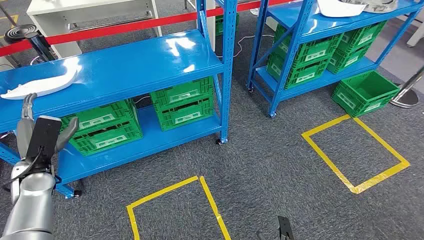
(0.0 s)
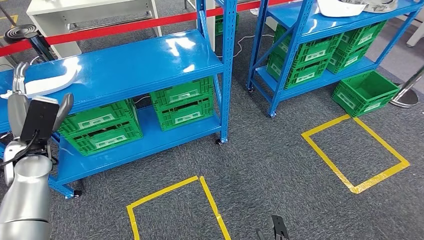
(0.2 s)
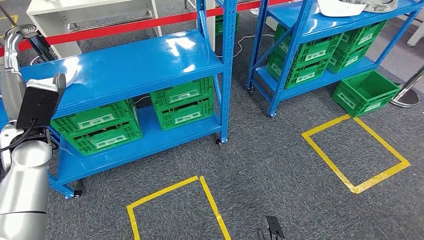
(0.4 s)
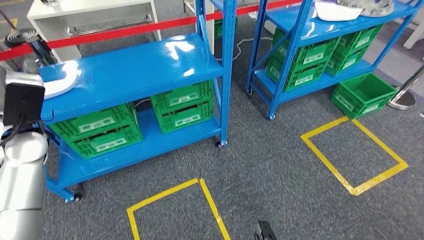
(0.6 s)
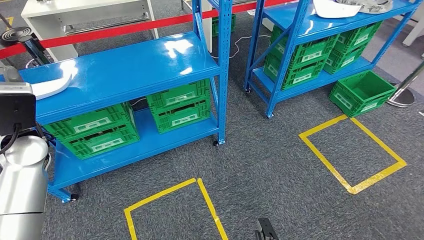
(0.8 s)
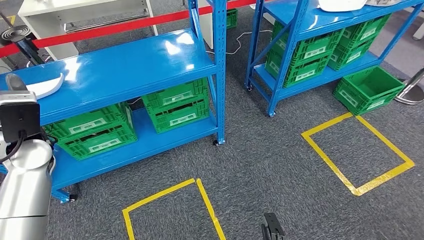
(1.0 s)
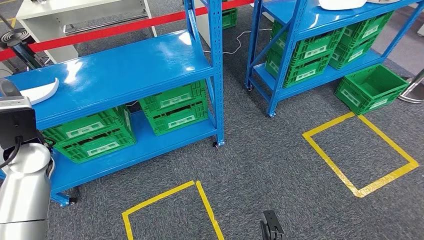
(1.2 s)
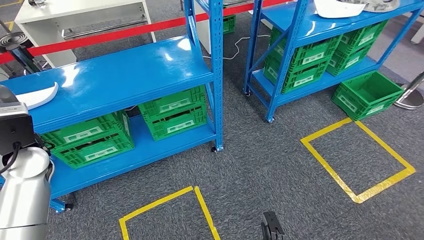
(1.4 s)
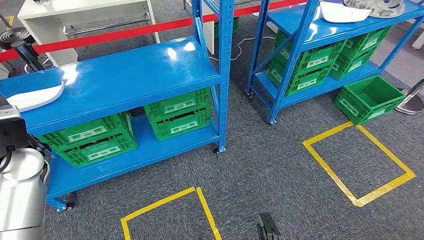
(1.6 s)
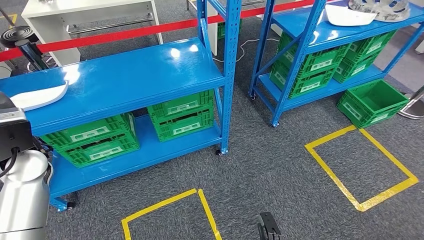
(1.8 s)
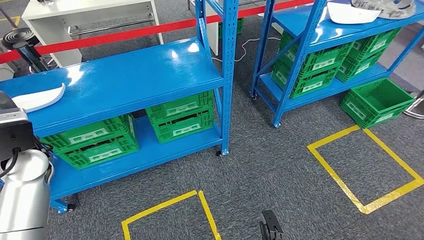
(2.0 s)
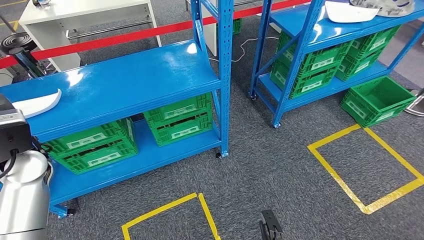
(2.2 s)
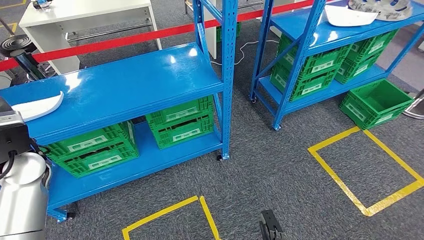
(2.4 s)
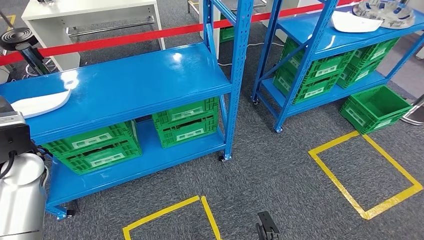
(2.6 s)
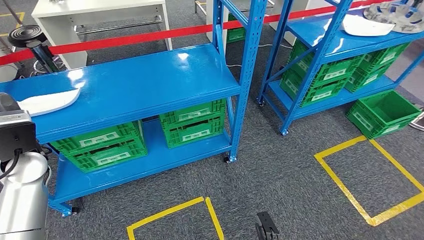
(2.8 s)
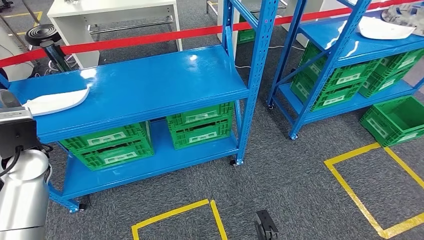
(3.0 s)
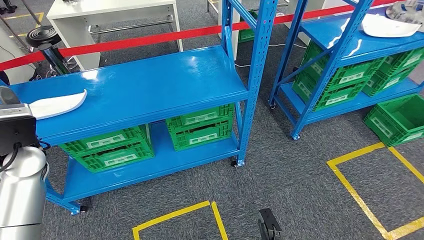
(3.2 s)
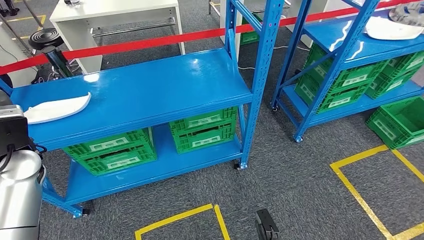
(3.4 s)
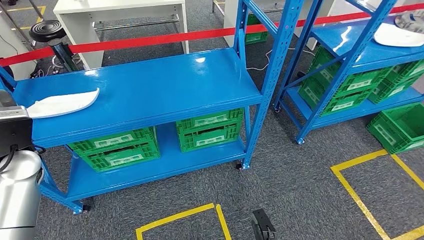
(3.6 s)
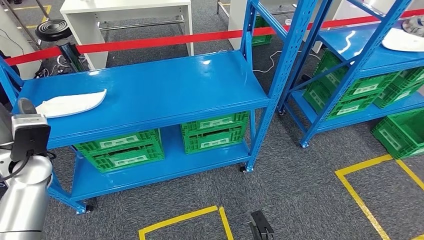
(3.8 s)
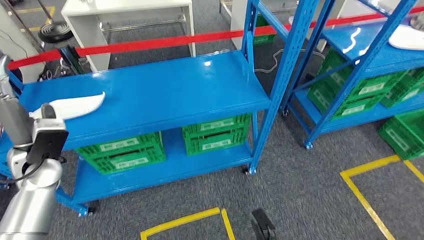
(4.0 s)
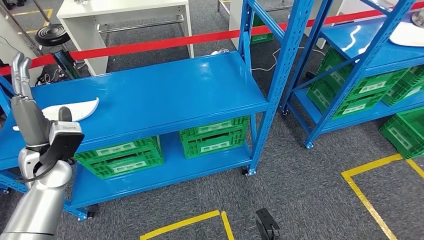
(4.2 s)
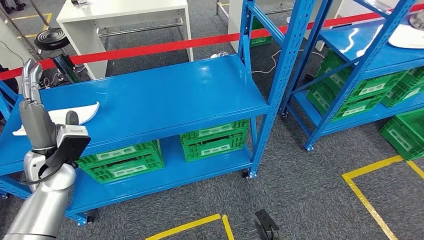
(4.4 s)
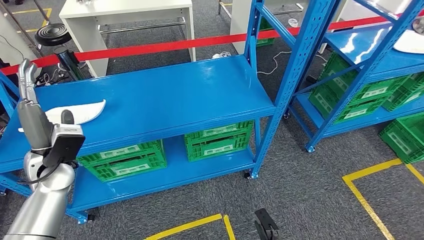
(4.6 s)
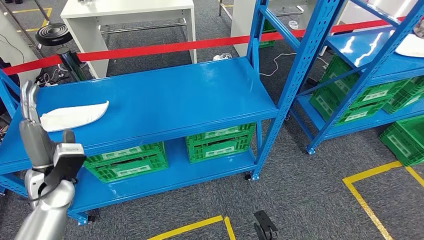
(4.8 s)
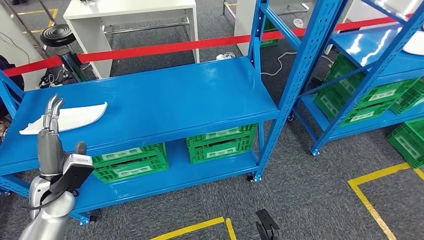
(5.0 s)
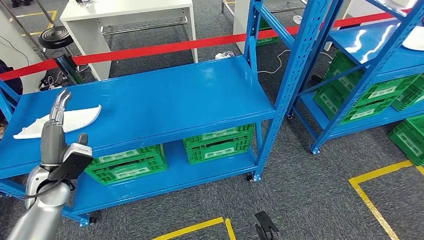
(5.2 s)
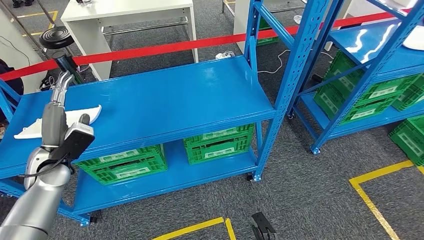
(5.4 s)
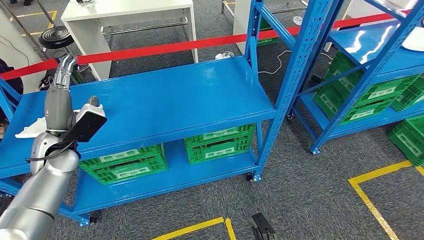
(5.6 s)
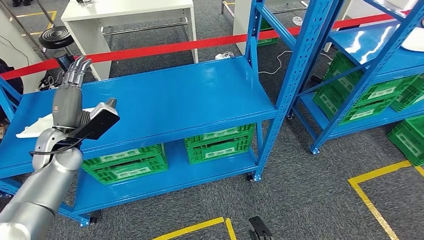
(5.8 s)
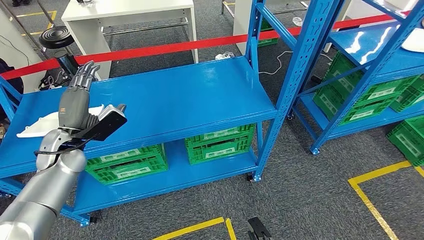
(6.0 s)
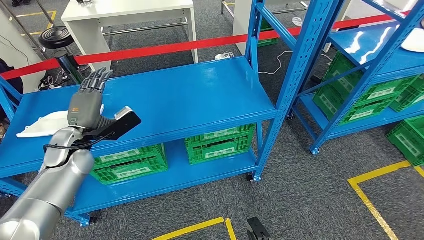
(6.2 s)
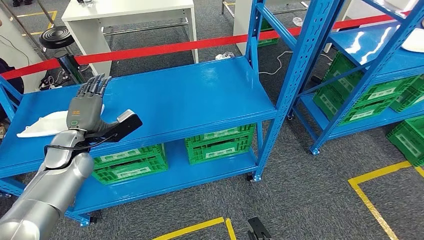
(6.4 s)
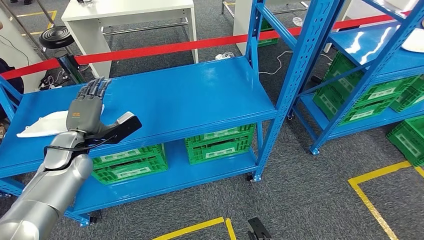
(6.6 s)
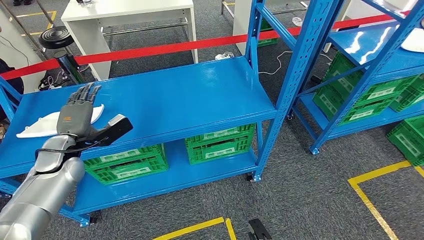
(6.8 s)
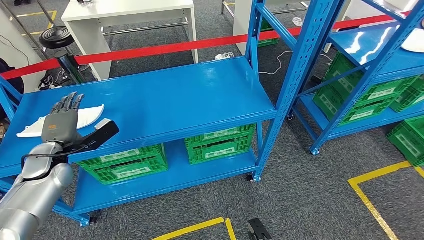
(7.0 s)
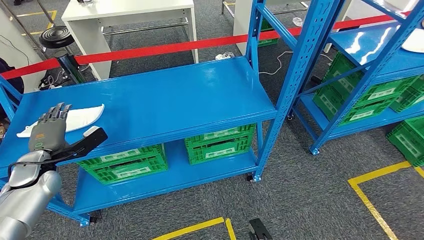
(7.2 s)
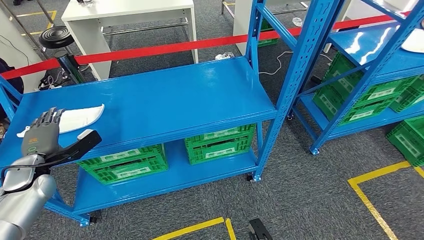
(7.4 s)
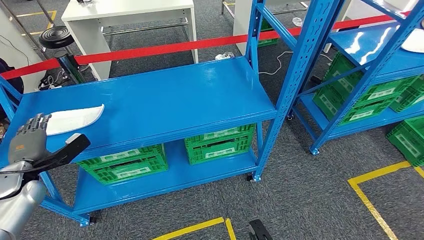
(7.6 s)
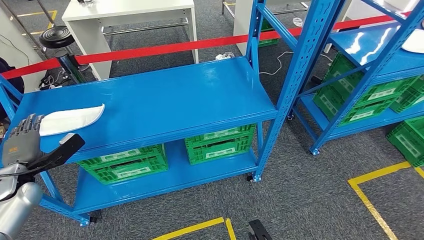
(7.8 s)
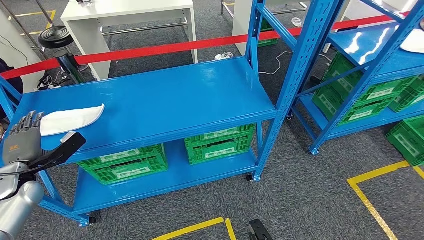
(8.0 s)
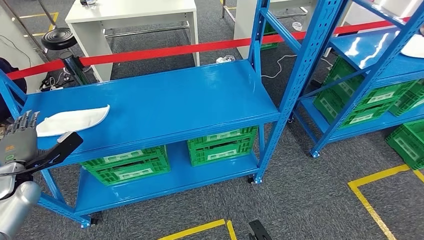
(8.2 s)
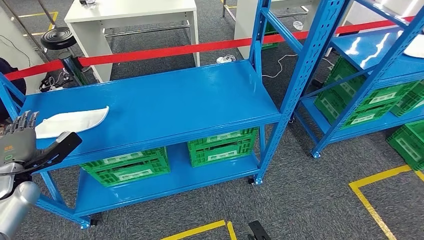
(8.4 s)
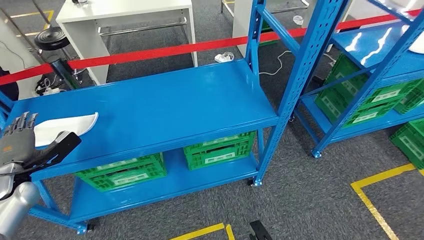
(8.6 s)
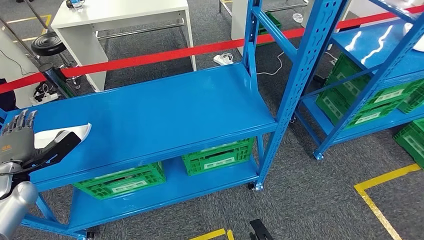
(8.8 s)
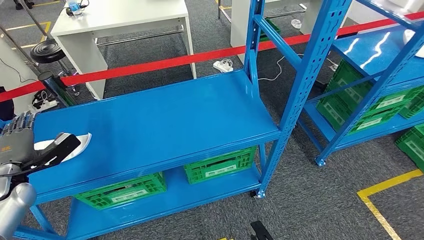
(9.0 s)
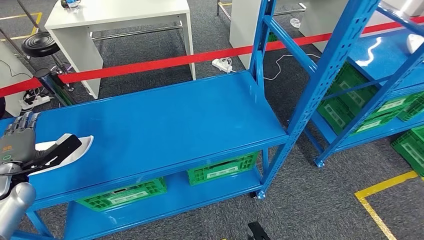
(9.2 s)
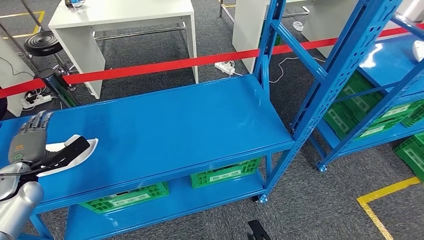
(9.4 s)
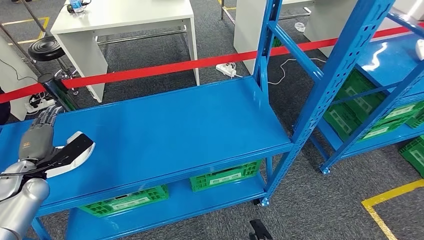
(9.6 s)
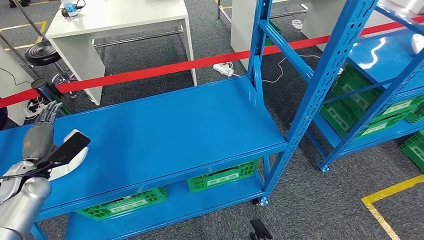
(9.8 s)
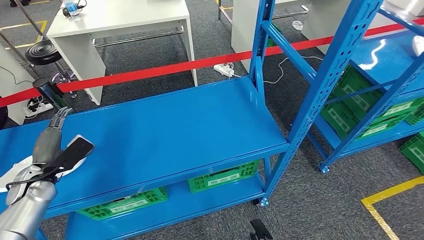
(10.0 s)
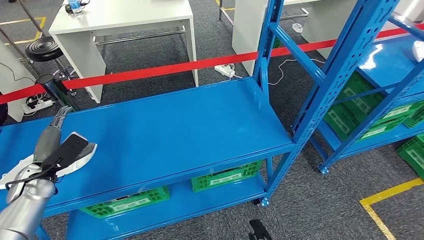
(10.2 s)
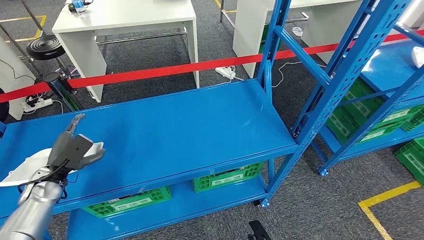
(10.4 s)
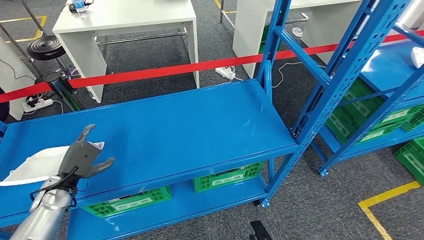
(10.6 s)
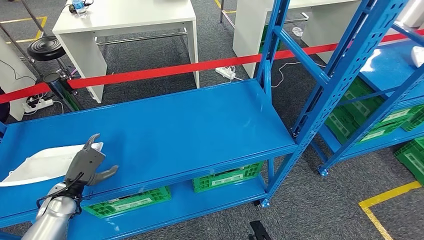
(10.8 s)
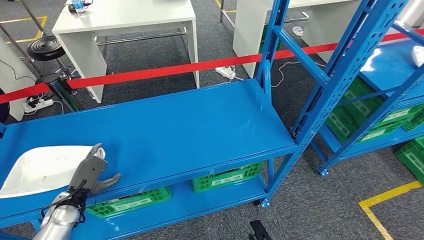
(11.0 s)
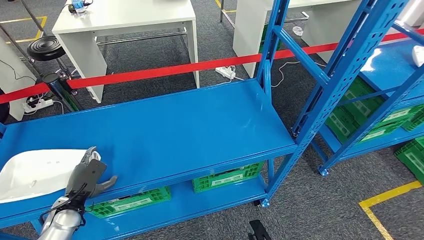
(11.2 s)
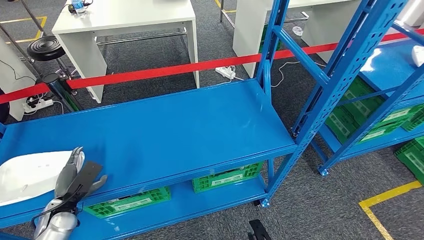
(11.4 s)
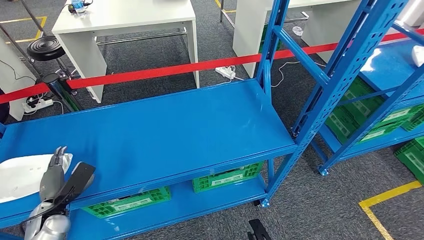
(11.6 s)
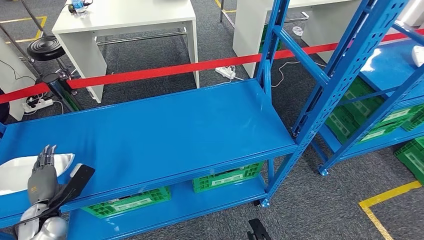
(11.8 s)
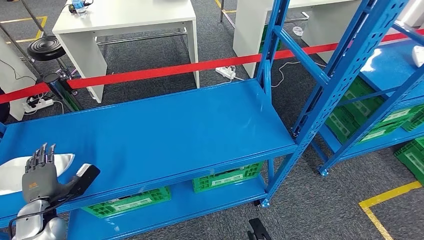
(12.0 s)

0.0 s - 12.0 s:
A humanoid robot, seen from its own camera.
6.0 s - 7.6 s: The left hand is displaced to the left and downward by some 15 cm.
10.4 s - 12.0 s: The left hand is displaced downward and backward by roughly 10 cm.

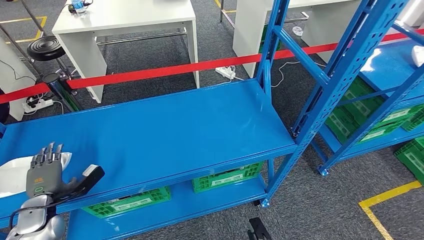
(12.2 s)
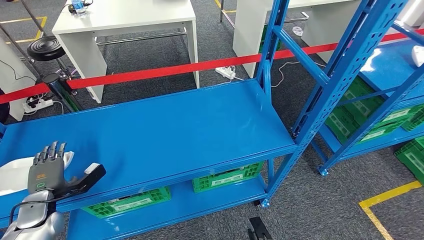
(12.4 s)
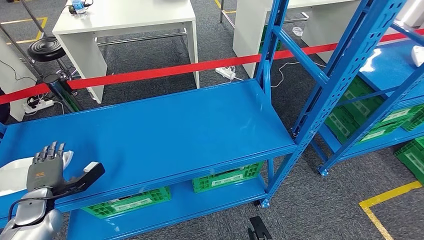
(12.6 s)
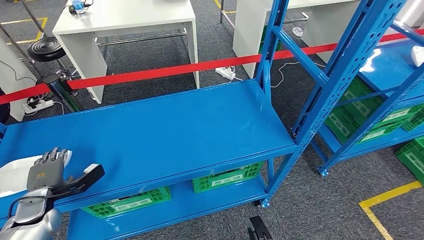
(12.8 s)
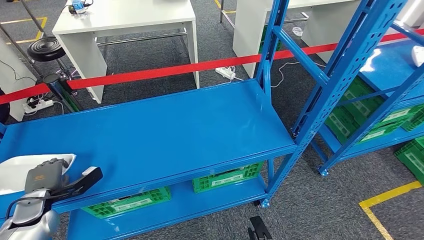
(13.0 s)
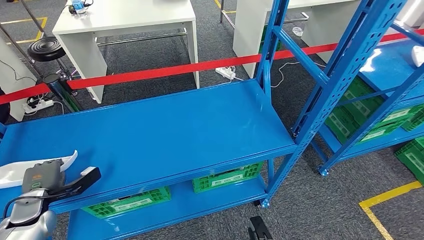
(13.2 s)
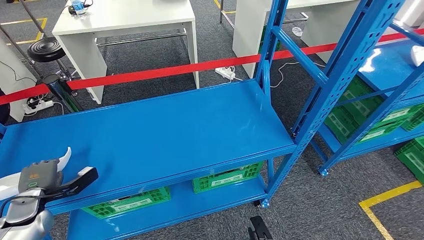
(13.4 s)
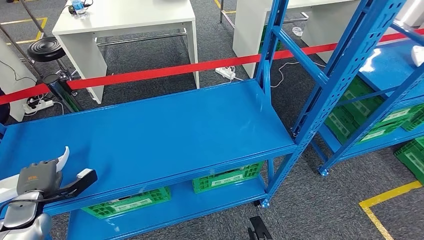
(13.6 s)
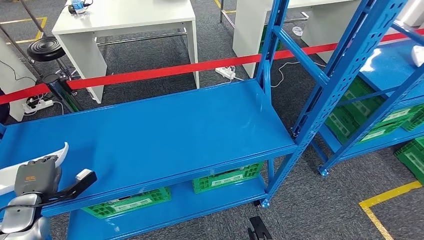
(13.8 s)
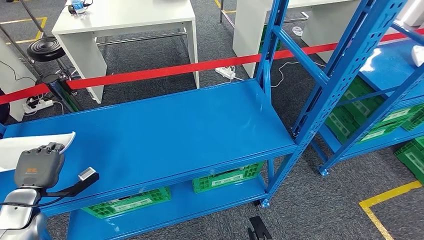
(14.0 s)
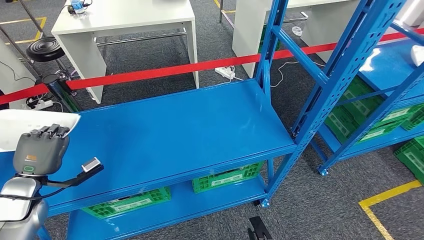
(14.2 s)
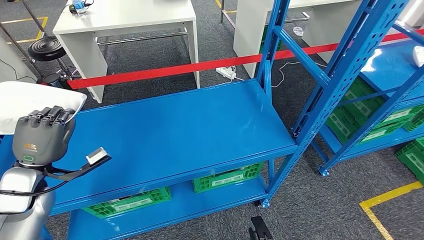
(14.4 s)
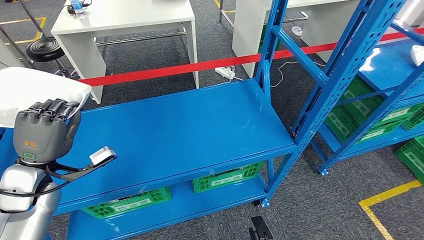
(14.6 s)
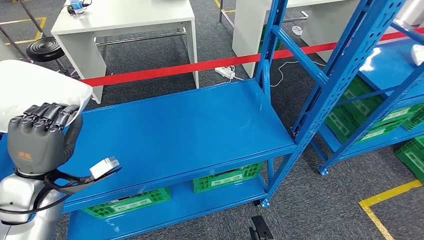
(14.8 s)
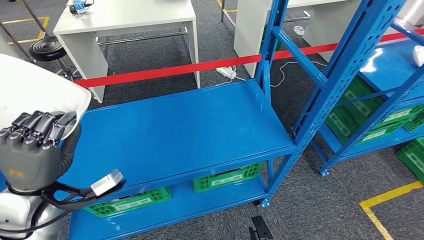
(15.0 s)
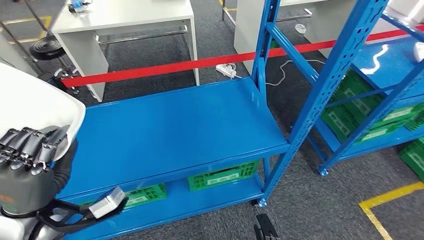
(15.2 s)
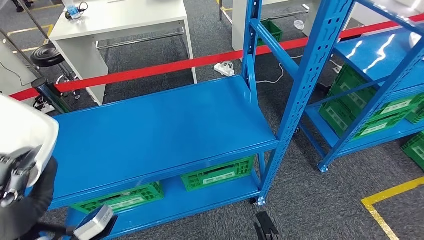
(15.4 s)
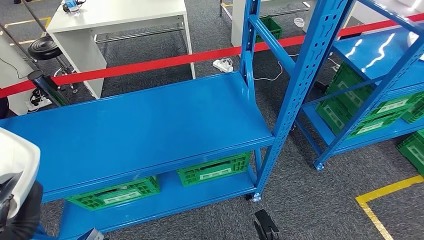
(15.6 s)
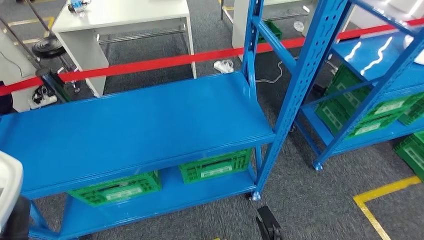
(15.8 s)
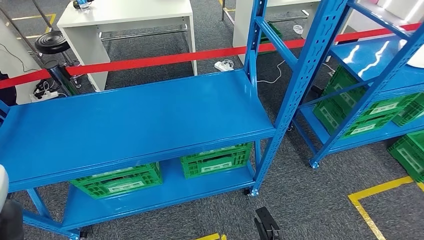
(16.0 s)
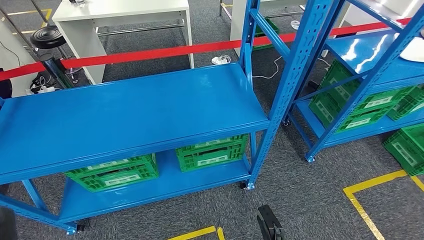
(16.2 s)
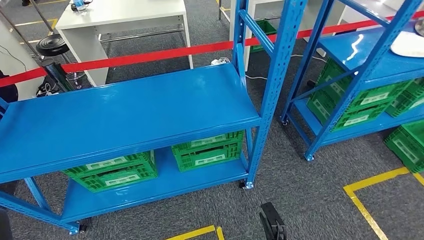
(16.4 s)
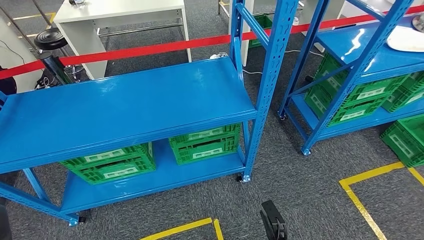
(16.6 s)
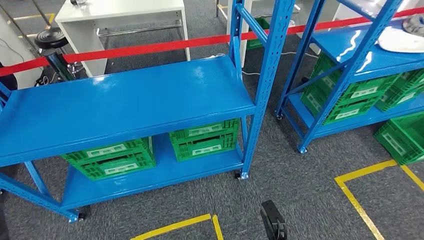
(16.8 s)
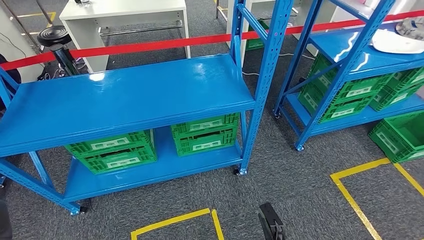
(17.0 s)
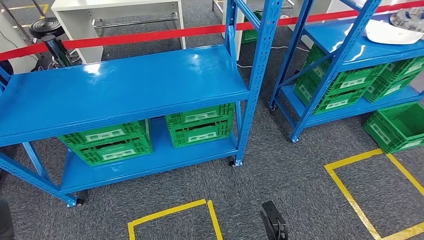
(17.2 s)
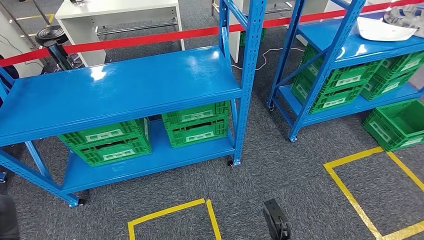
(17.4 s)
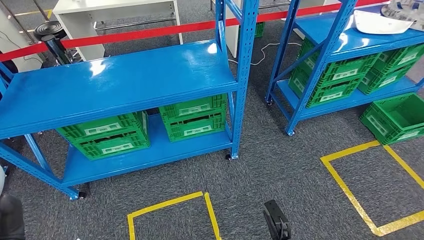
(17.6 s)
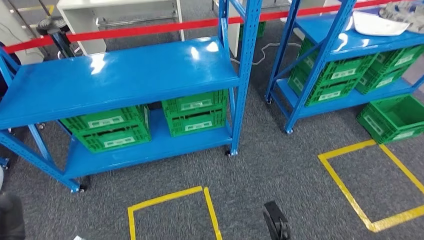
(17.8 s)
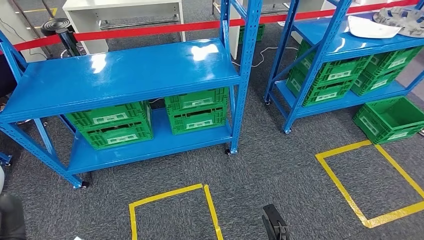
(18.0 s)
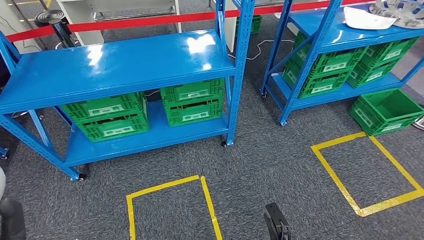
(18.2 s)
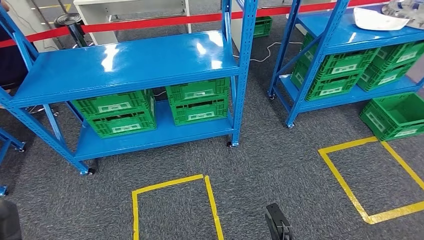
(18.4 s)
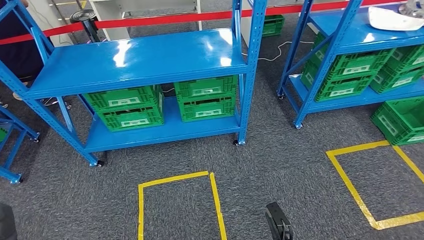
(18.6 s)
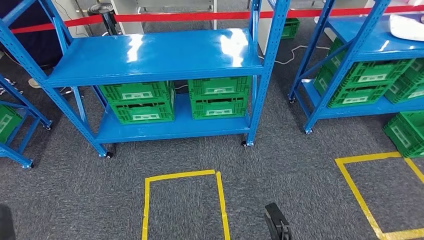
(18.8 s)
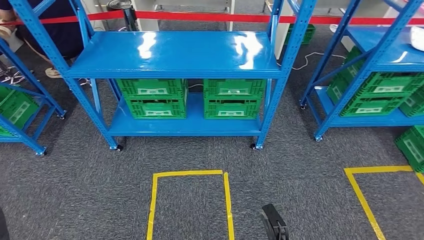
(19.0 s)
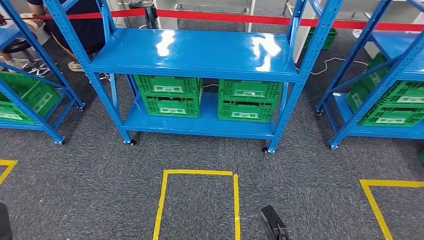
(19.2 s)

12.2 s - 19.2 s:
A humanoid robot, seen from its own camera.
Step, 12.2 s - 14.6 s: Pick up the small component from the shelf.
12.2 s - 13.6 s: The hands make only small movements.
13.6 s - 15.0 s: The left hand moves upward and to the right, some 20 cm.
